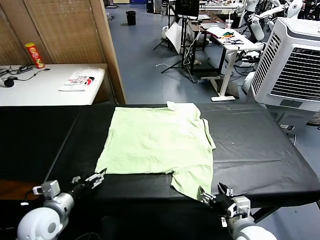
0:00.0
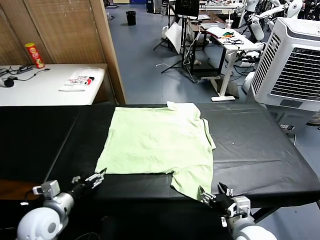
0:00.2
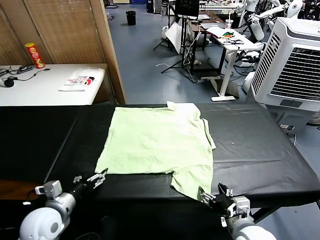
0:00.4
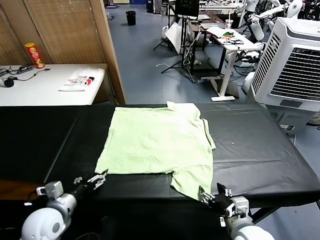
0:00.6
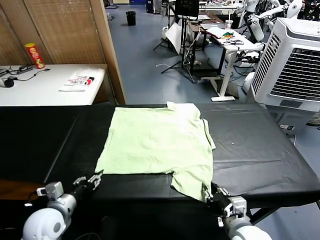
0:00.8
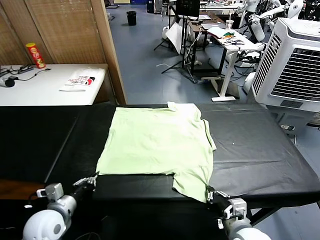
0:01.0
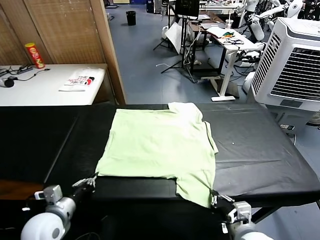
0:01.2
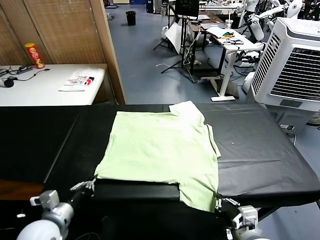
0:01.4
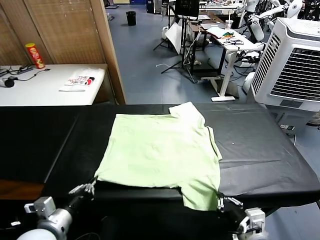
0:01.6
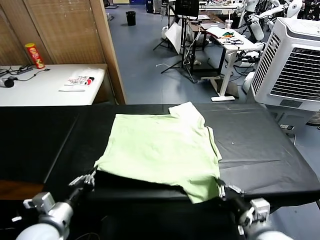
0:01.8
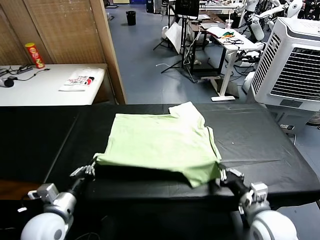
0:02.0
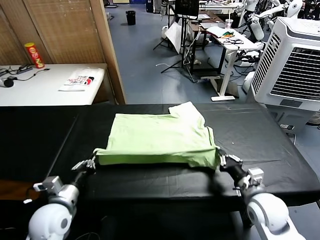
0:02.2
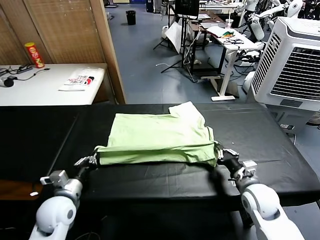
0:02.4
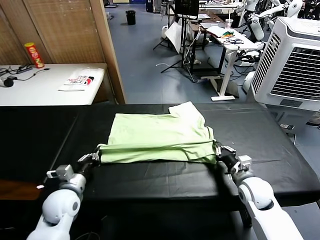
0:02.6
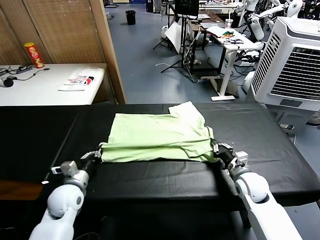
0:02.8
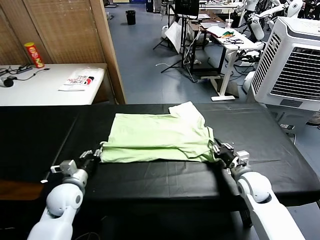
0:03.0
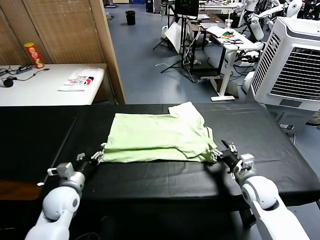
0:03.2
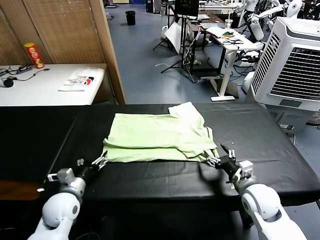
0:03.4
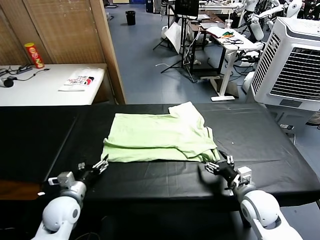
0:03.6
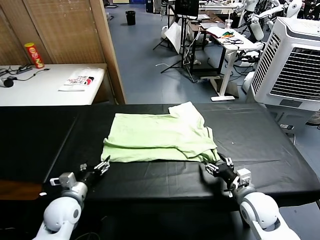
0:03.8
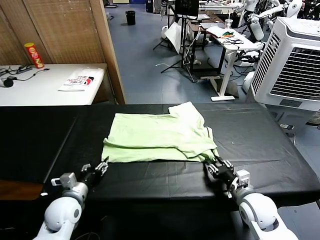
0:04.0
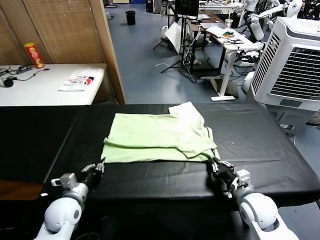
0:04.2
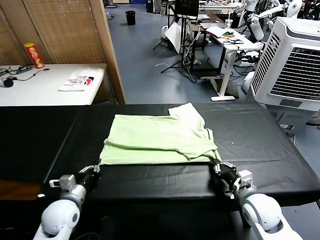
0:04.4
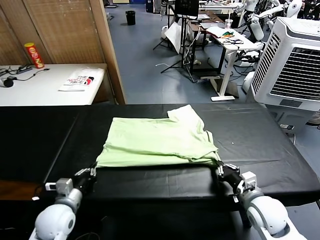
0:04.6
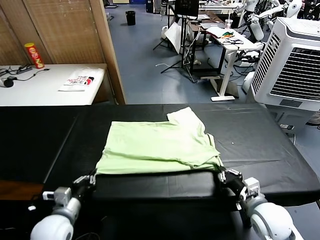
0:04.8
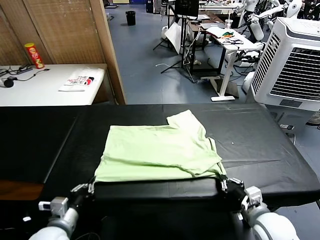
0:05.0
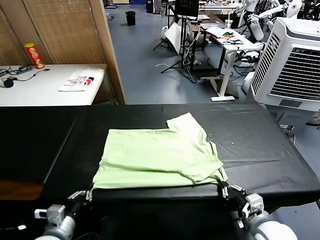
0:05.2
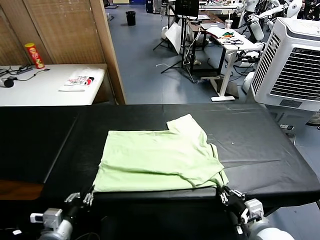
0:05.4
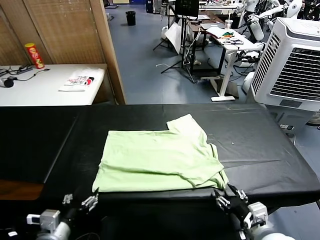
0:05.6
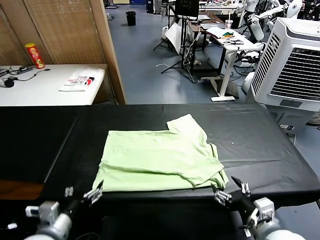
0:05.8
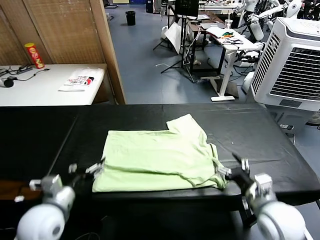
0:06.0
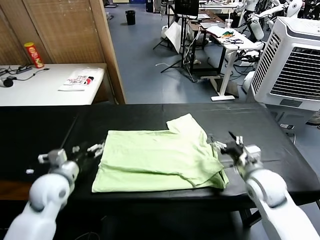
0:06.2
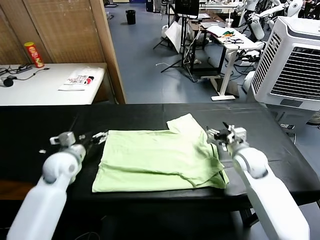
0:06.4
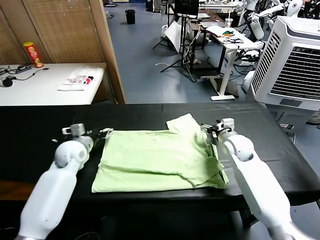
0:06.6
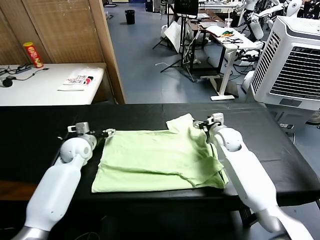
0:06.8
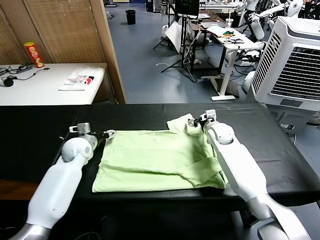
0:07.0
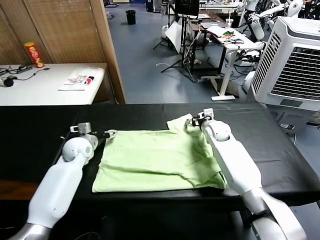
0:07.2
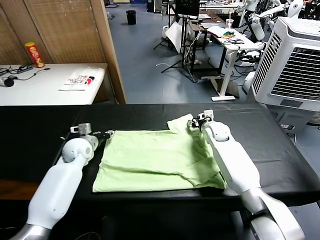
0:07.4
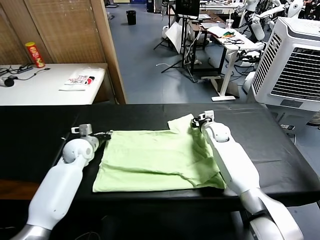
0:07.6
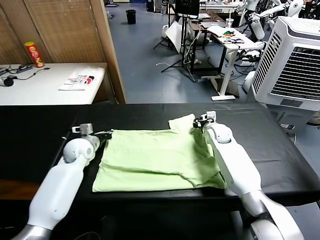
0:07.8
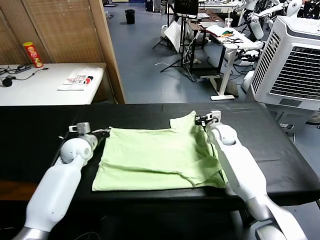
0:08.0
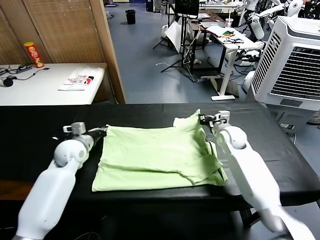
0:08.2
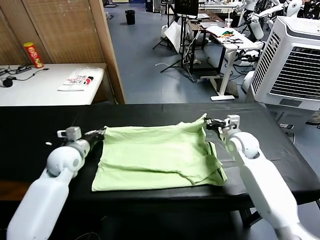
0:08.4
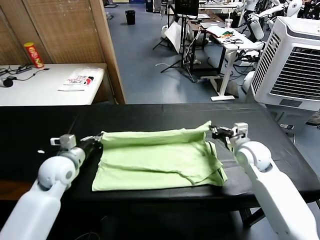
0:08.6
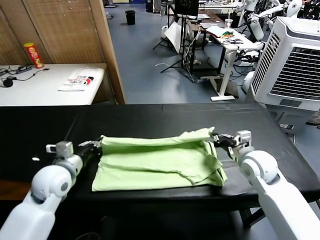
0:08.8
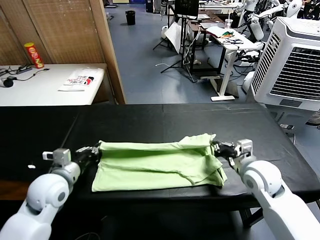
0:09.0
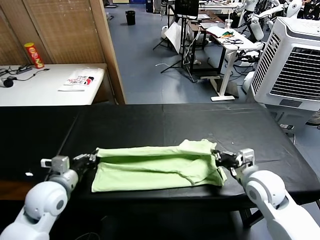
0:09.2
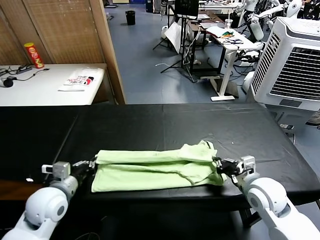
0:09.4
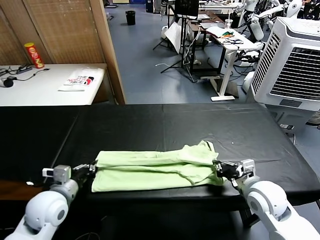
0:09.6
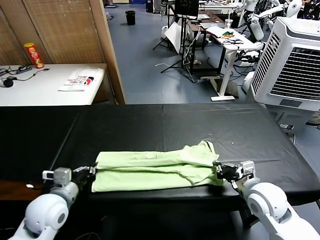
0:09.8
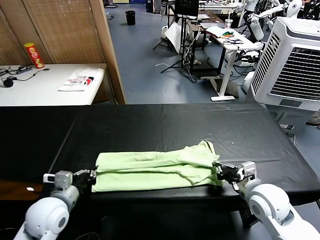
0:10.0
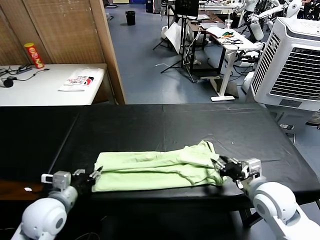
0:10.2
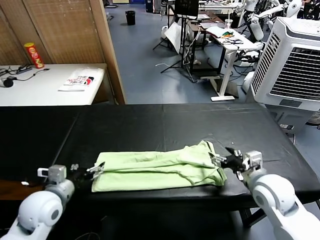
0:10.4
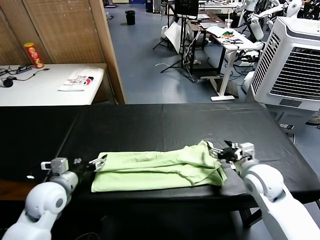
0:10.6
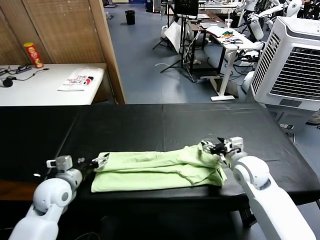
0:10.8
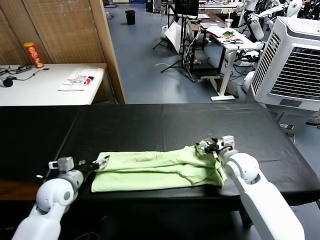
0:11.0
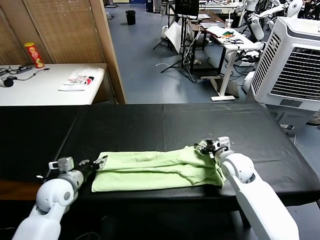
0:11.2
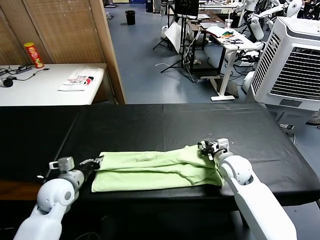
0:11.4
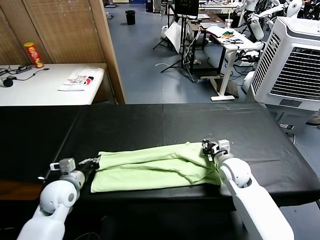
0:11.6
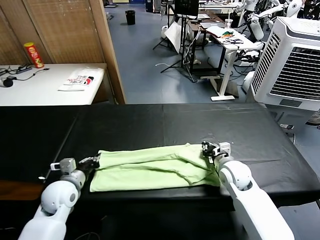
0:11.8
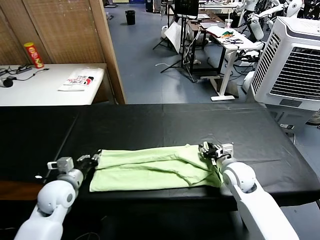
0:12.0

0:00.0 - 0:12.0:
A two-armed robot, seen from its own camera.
Task of the whole recording: fold and organize the clothes.
Step, 0:00.0 - 0:01.0: use both grippers simultaneously to clamp the lower edge of the clothing fabric.
Step, 0:01.2 - 0:03.2: use both grippers to drag the lower edge of the fabric forward and fold it over the upper edge.
Step, 0:03.4 - 0:05.6: Drag the clothes downward with both gripper.
Step, 0:06.0 - 0:07.6: use both grippers simultaneously to clamp the upper edge of the clothing fabric.
Step, 0:07.8 - 0:10.2: use both grippers to drag the upper edge of the fabric backward and fold it over the lower edge.
0:01.6 - 0:03.0: The left gripper shifts approximately 15 cm forward and downward, and opens up; the right gripper moves forward, some 15 cm, and opens its fingers.
0:03.0 - 0:04.4: The right gripper goes approximately 5 cm backward, and closes its fingers. The left gripper closes up.
0:04.4 - 0:06.0: The left gripper travels upward by roughly 10 cm, travels backward and back again, about 10 cm each way, and opens up, while the right gripper moves forward and upward, about 10 cm, and opens.
0:06.0 - 0:07.6: The grippers both shift forward by about 25 cm. The right gripper closes. The left gripper closes up.
0:07.6 - 0:09.0: Both grippers move backward, approximately 20 cm.
0:09.0 - 0:10.4: The left gripper opens its fingers. The right gripper opens its fingers.
0:10.4 - 0:12.0: The right gripper shifts roughly 5 cm downward, and closes, then reopens; the left gripper moves about 5 cm, and closes its fingers.

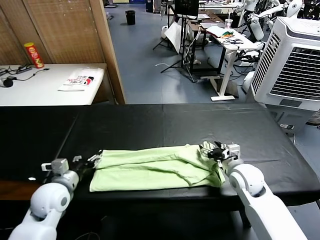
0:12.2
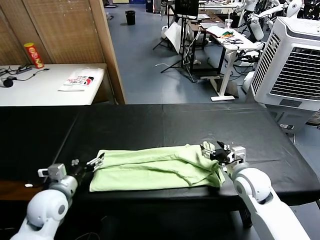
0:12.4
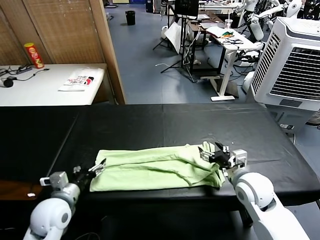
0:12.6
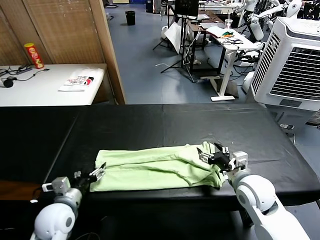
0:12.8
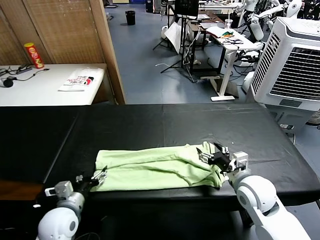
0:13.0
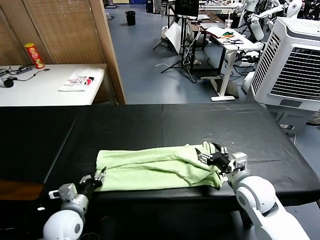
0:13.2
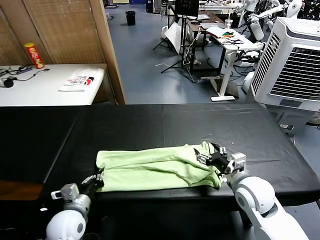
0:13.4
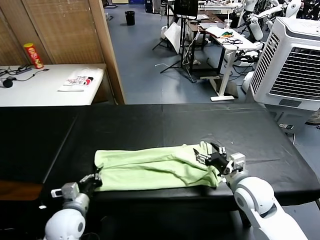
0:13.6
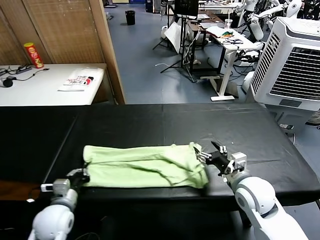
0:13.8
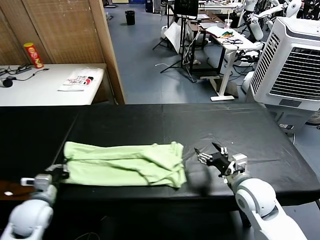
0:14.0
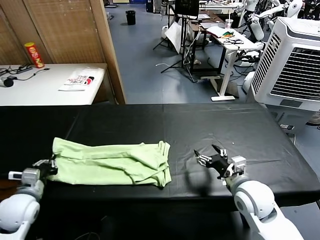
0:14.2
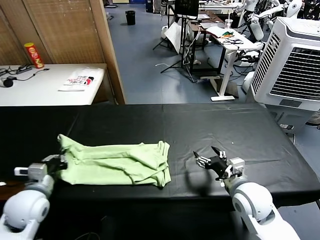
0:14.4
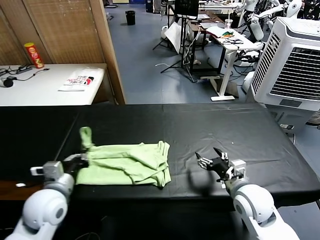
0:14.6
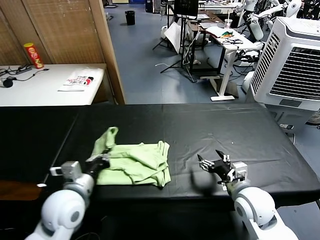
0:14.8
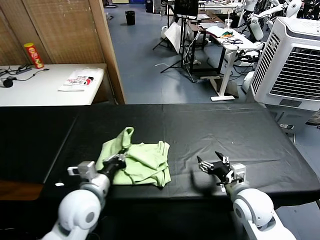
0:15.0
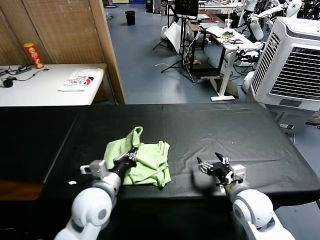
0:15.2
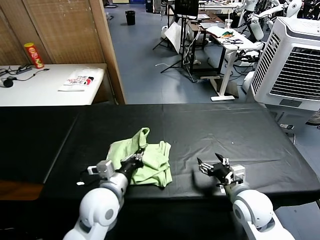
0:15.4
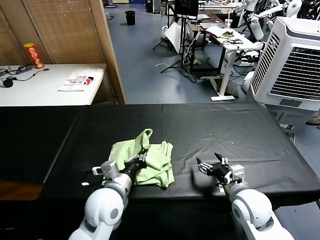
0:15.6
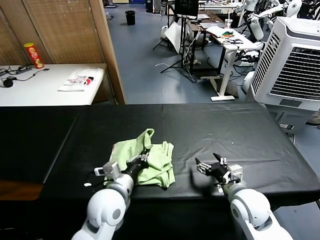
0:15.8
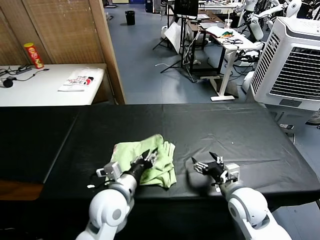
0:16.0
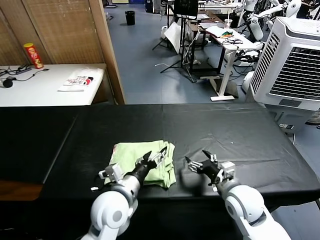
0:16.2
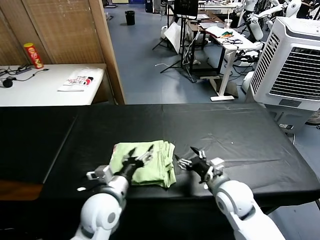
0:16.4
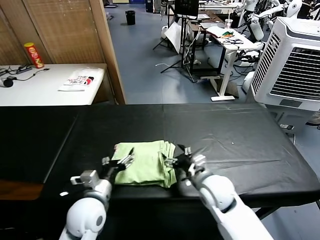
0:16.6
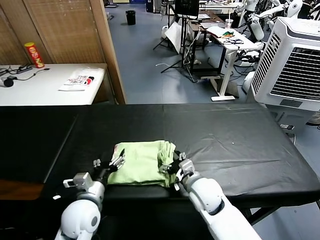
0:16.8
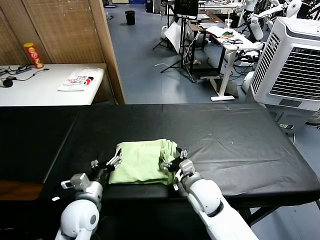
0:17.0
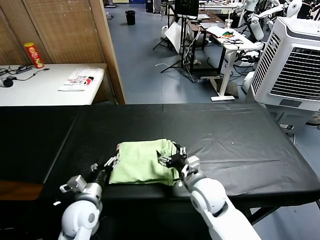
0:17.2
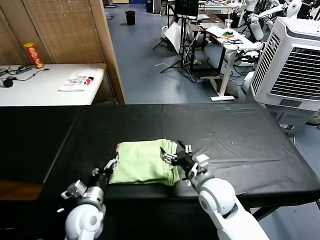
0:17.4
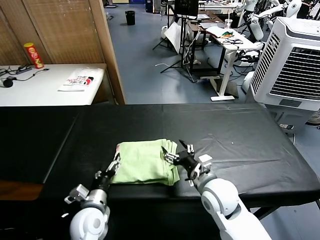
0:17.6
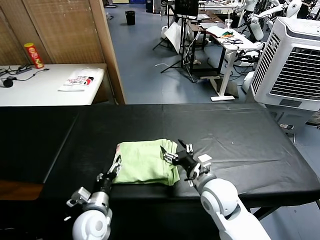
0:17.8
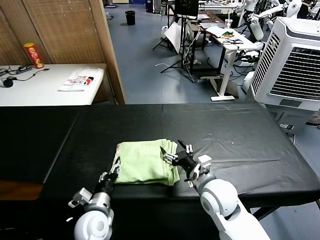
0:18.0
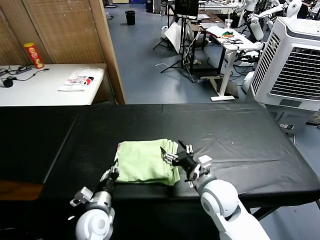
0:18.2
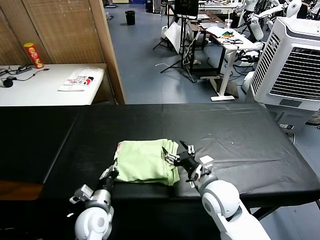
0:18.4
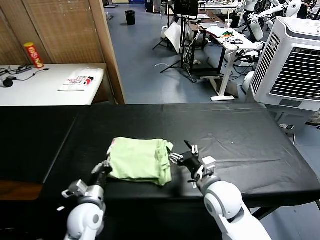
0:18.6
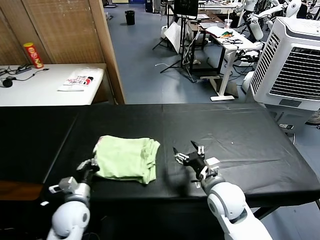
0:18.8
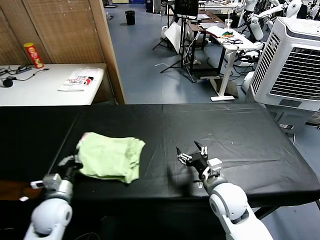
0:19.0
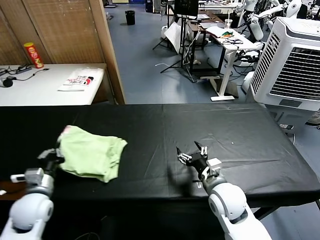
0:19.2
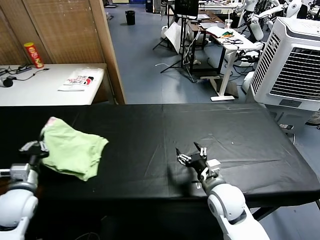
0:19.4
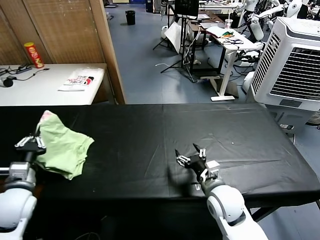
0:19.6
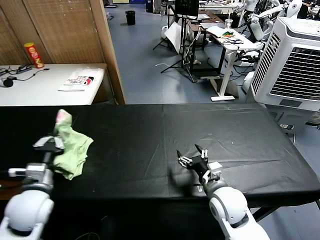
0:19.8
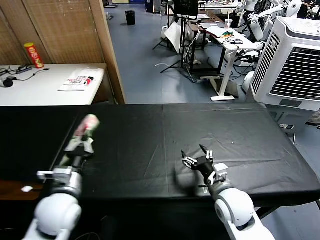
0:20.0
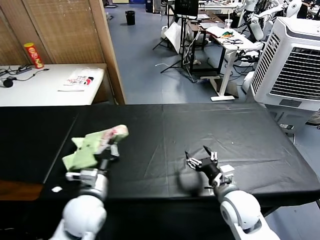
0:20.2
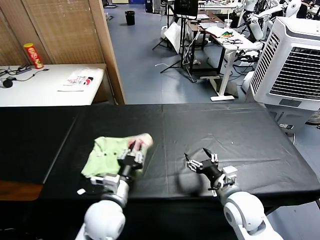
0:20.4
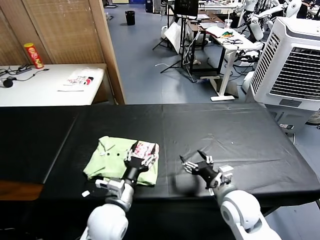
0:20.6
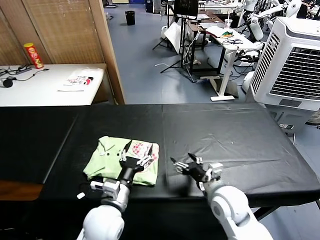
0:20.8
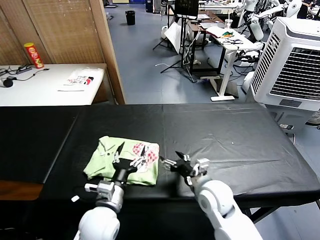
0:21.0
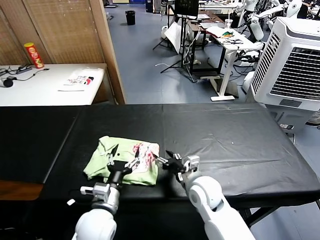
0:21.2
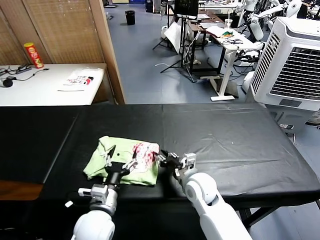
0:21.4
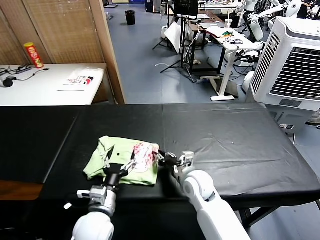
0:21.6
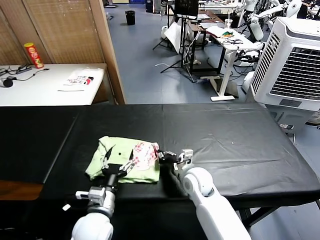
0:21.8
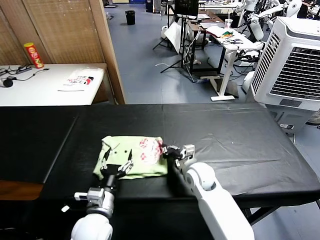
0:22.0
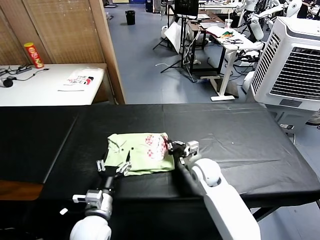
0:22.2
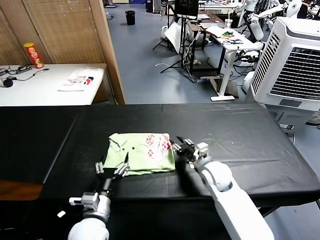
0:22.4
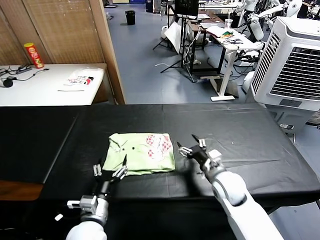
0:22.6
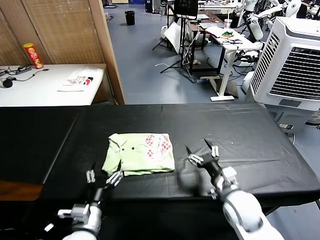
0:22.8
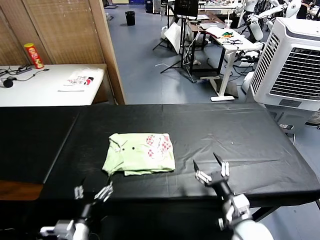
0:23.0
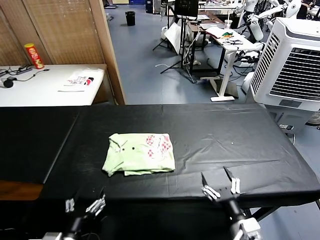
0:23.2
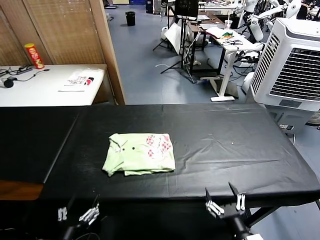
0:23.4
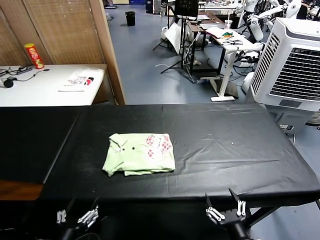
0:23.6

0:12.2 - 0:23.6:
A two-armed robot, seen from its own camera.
Task of the whole recording: fold and organize the clothes.
Step, 0:13.6 - 0:16.0: use the left gripper to drag the left edge of the fabric to the left and folds it over the right edge.
Step, 0:16.2 - 0:20.4: Flip the folded clothes over with left gripper.
Step, 0:20.6 - 0:22.2: Drag the clothes to the center of the table.
0:12.2 - 0:13.6: The left gripper moves backward, some 5 cm, and closes its fingers. Meanwhile the right gripper changes place by roughly 5 cm.
0:13.6 - 0:15.0: The left gripper travels upward and to the right by roughly 10 cm.
0:15.0 - 0:16.4: The right gripper is displaced to the left by approximately 5 cm. Meanwhile the left gripper changes place by about 5 cm, and opens.
0:16.4 - 0:17.8: The left gripper shifts about 10 cm downward and to the left.
0:17.8 - 0:19.4: The left gripper moves to the left and upward, approximately 20 cm, and closes up.
0:19.4 - 0:20.8: The left gripper heads to the right, covering some 25 cm, and opens.
0:20.8 - 0:22.2: The right gripper goes approximately 10 cm forward, and closes. The left gripper shifts by approximately 5 cm.
0:22.2 - 0:23.6: The left gripper moves backward and to the left, some 15 cm, while the right gripper heads backward, covering approximately 30 cm, and opens up.
